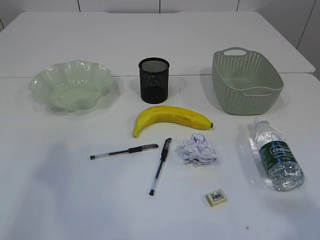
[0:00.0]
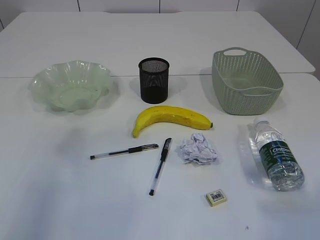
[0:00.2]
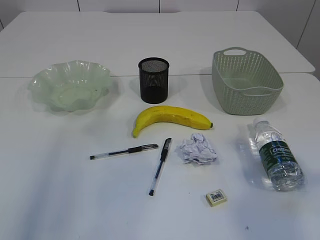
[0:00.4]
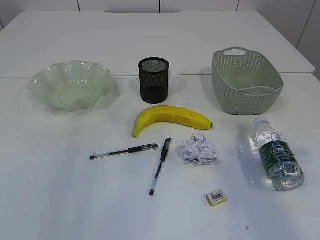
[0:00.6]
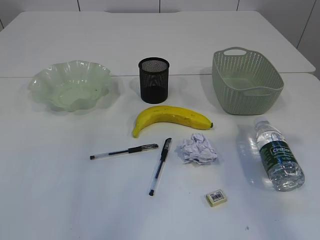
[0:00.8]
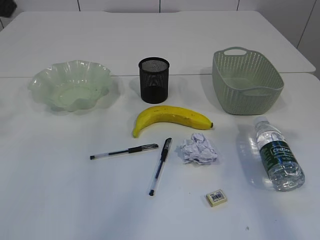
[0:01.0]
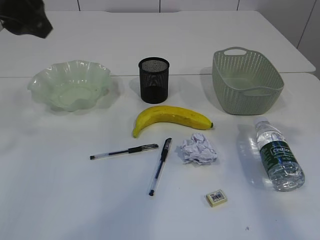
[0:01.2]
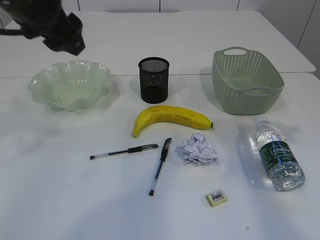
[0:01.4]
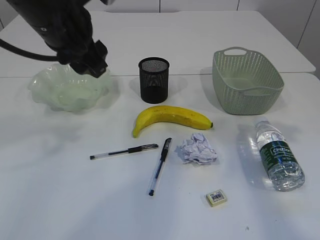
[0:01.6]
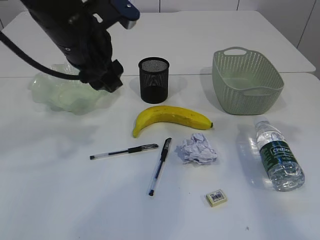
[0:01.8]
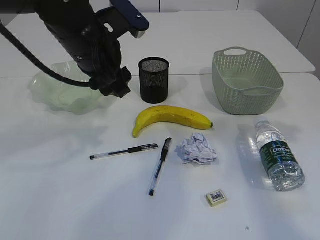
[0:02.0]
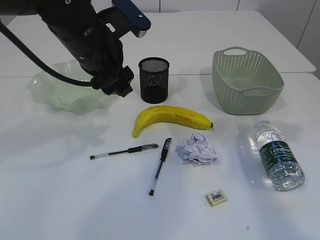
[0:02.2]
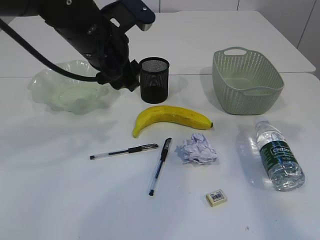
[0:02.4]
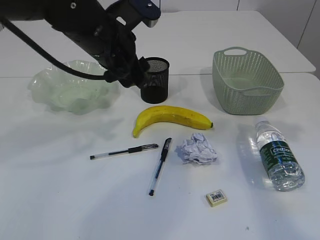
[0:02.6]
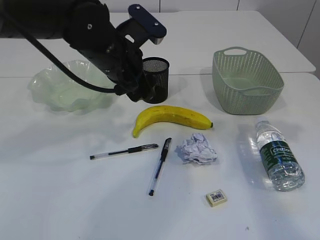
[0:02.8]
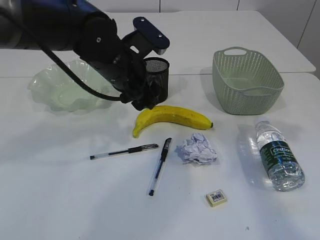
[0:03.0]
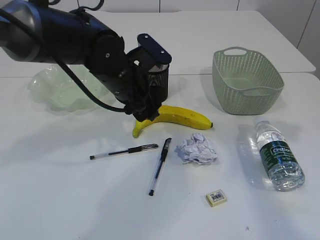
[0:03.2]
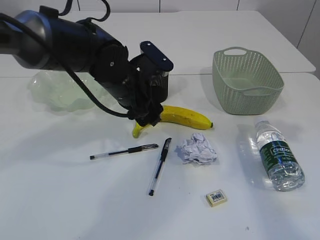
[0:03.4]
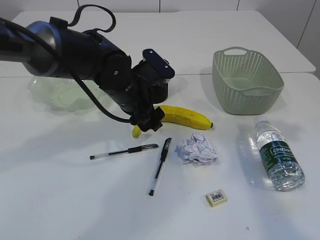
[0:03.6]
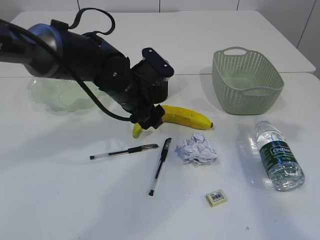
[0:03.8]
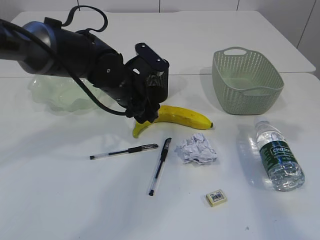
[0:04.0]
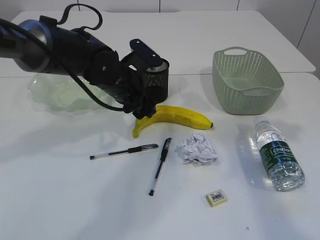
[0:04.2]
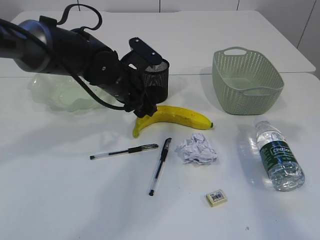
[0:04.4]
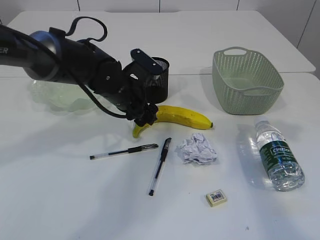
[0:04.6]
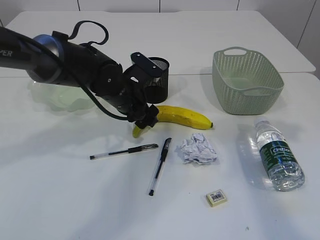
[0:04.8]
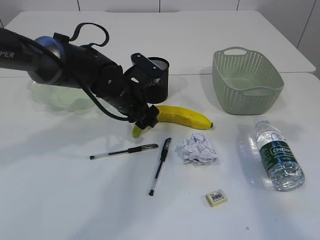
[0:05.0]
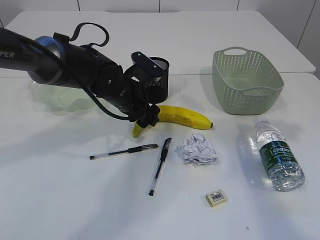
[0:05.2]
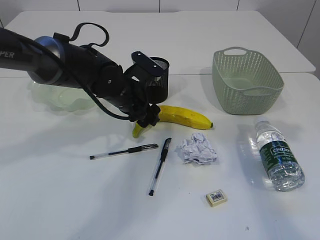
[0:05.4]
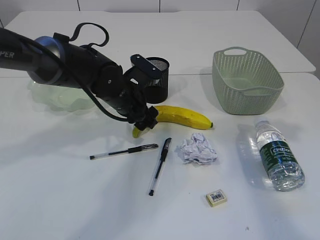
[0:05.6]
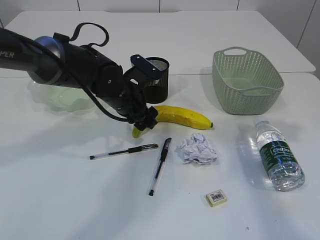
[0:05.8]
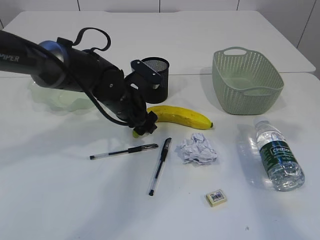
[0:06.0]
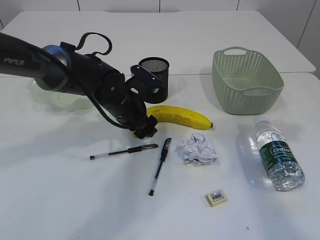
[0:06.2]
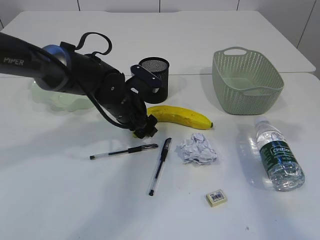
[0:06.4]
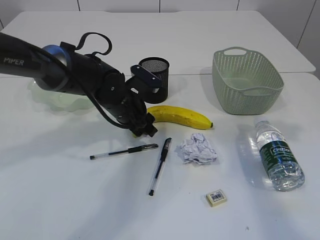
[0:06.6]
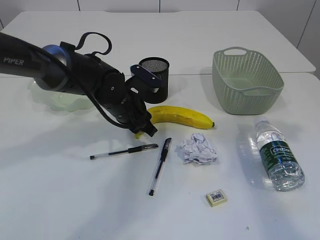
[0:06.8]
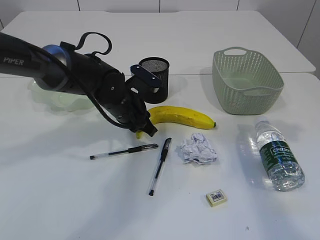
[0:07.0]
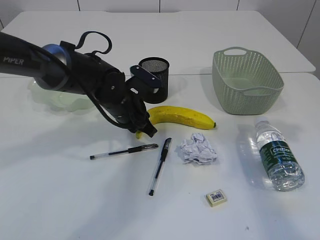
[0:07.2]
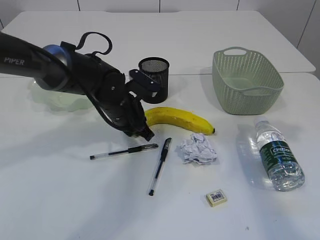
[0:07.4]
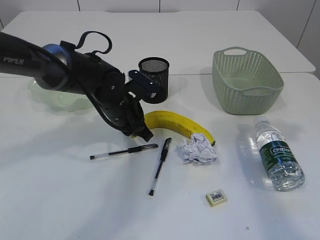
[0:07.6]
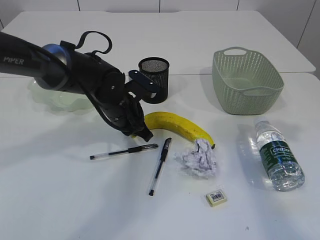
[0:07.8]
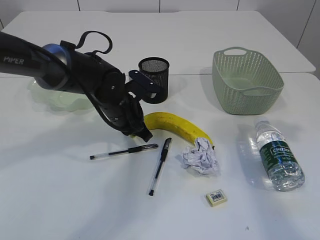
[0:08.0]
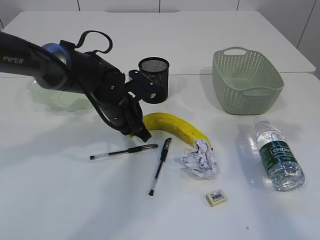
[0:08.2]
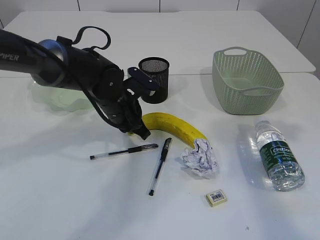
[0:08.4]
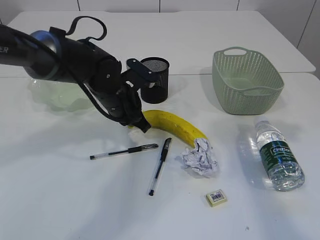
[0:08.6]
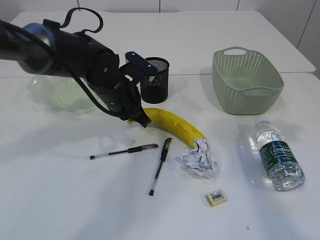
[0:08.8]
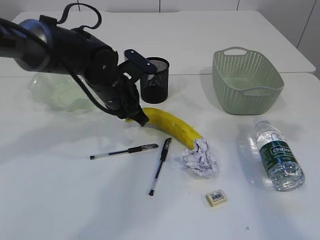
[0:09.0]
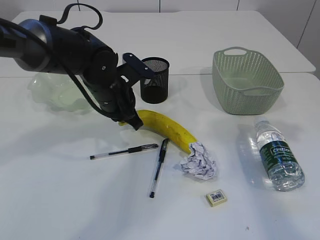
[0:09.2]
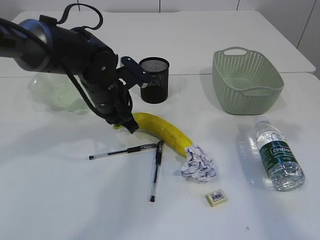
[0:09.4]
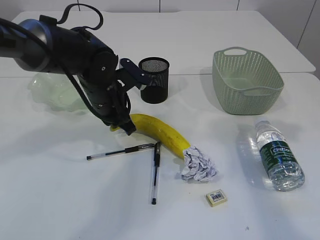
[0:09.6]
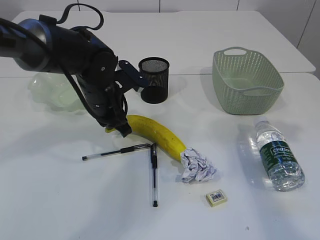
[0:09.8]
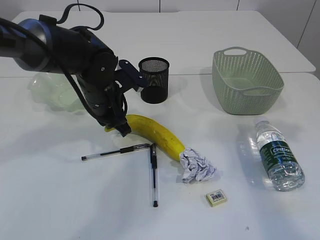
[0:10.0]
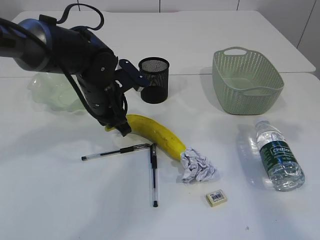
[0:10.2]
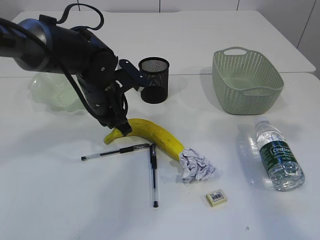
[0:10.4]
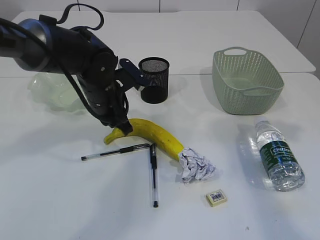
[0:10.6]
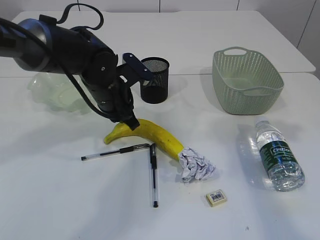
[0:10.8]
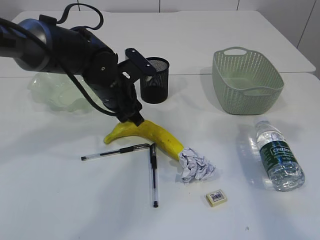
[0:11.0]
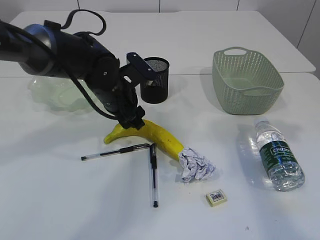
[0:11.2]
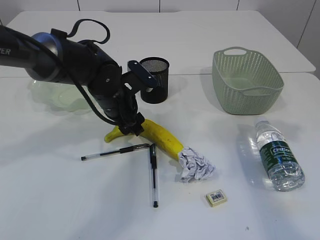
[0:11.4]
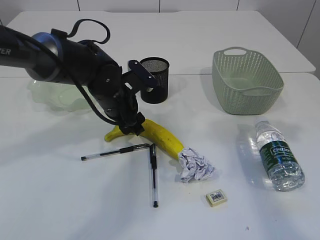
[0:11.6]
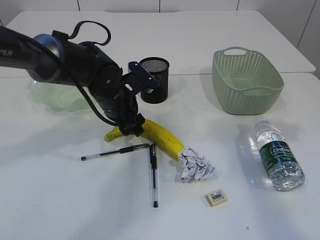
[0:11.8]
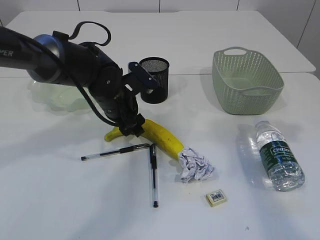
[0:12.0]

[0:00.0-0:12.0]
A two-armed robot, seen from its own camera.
0:00.0 to 0:01.6: The right gripper shifts some 25 cm forward. Meanwhile the left gripper shifts approximately 30 cm to the right and forward.
0:01.6 to 0:03.0: The left gripper moves downward and to the right, about 10 cm.
0:03.0 to 0:04.4: The left gripper travels downward by approximately 5 cm.
0:04.4 to 0:06.0: The grippers make only small movements.
0:06.0 to 0:07.6: The left gripper closes its fingers.
0:07.6 to 0:10.4: The grippers make only small movements.
0:10.4 to 0:12.0: The left gripper opens its fingers.

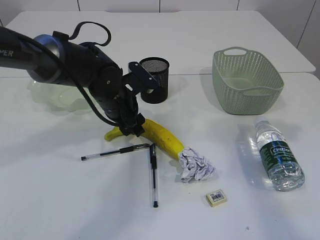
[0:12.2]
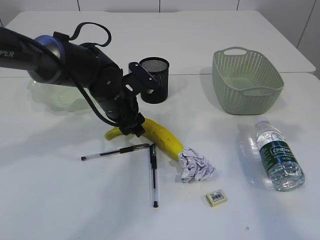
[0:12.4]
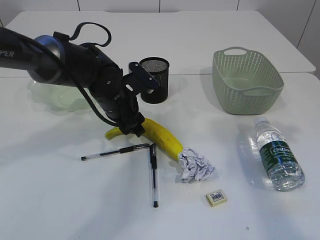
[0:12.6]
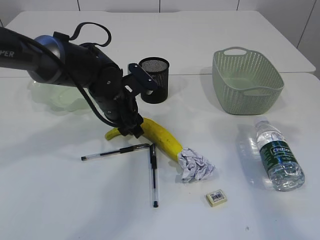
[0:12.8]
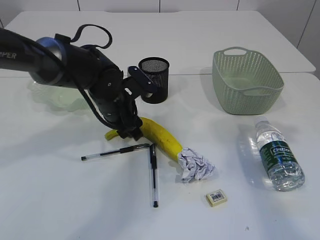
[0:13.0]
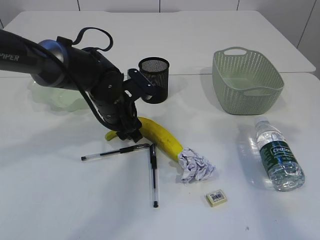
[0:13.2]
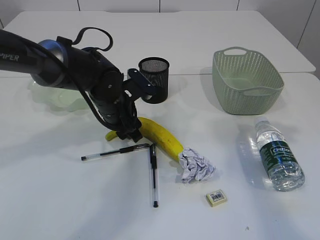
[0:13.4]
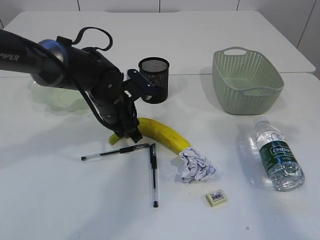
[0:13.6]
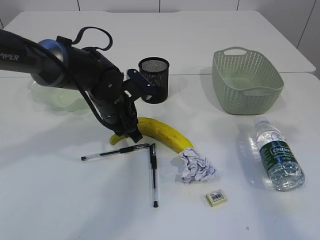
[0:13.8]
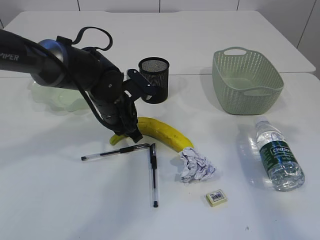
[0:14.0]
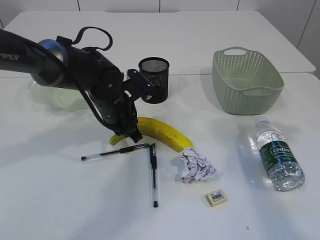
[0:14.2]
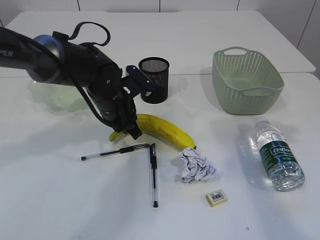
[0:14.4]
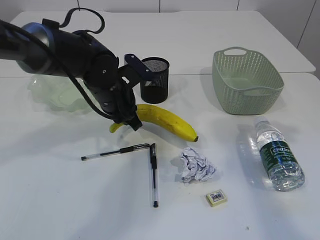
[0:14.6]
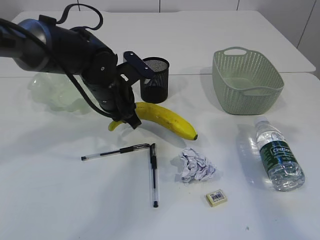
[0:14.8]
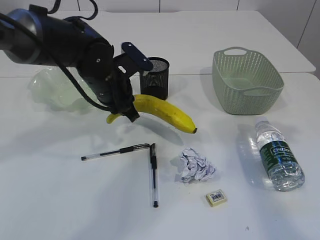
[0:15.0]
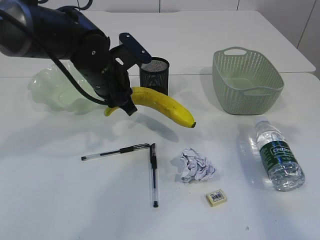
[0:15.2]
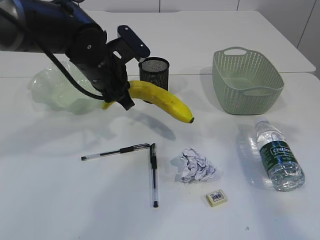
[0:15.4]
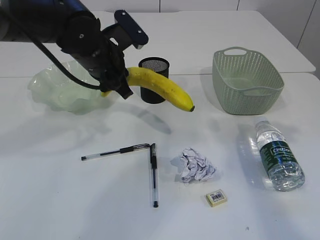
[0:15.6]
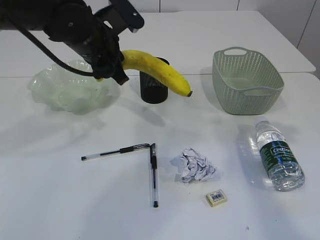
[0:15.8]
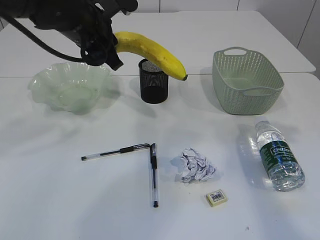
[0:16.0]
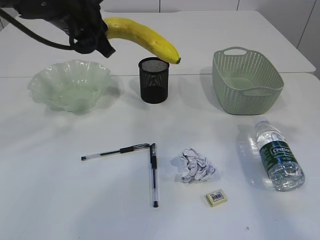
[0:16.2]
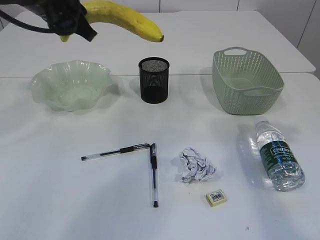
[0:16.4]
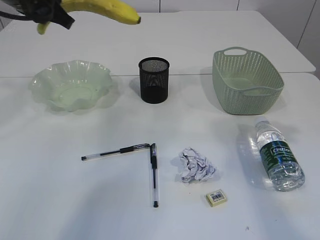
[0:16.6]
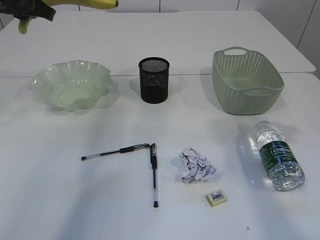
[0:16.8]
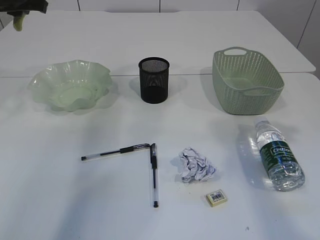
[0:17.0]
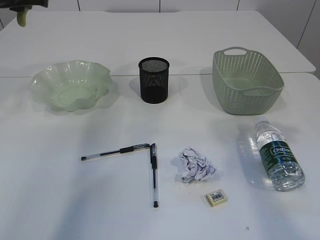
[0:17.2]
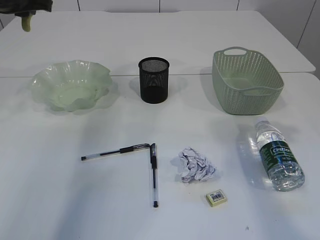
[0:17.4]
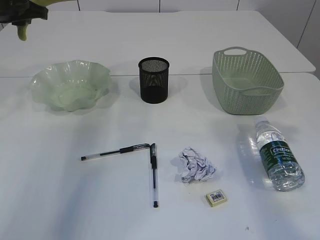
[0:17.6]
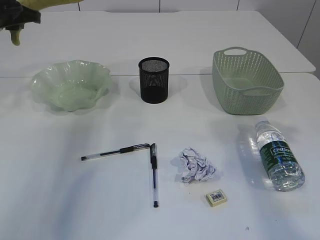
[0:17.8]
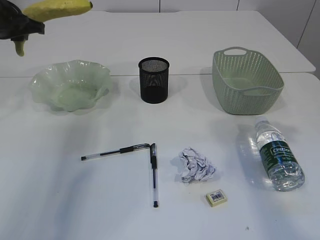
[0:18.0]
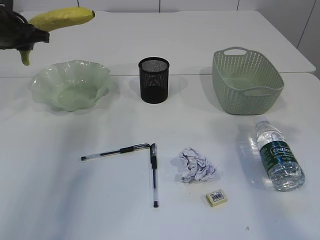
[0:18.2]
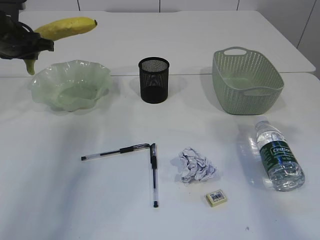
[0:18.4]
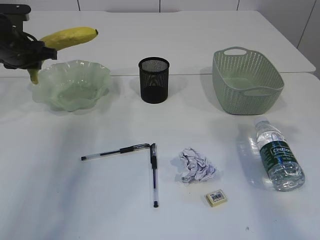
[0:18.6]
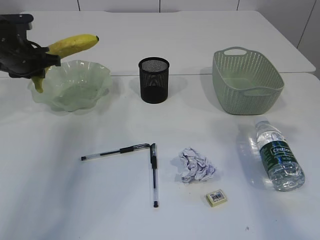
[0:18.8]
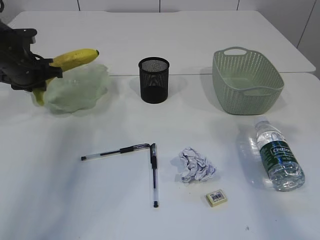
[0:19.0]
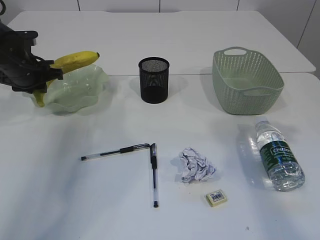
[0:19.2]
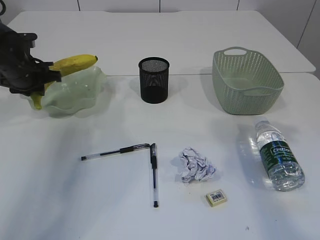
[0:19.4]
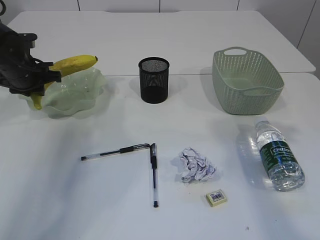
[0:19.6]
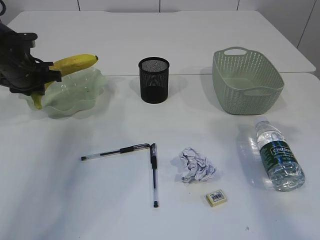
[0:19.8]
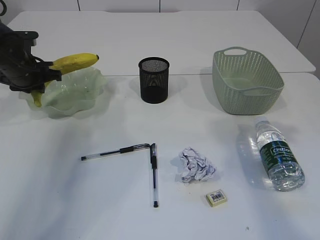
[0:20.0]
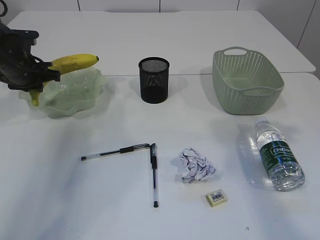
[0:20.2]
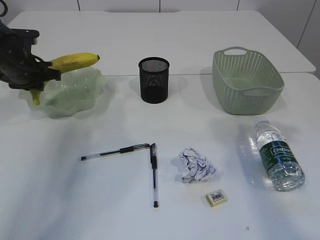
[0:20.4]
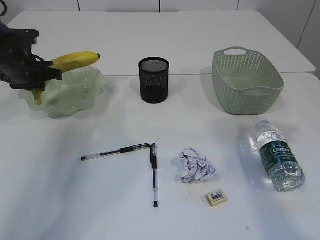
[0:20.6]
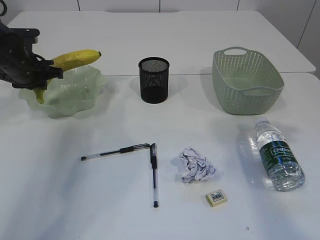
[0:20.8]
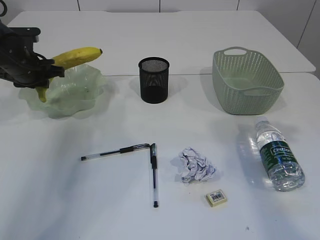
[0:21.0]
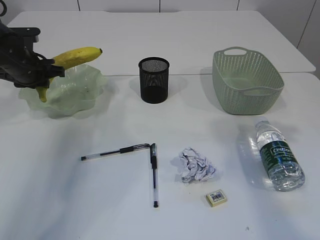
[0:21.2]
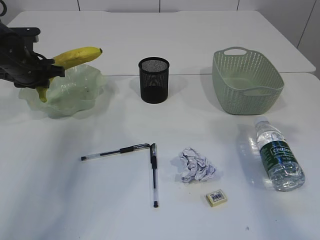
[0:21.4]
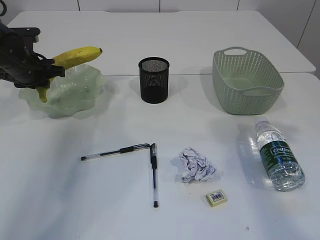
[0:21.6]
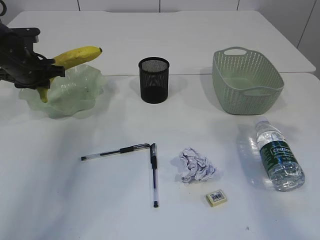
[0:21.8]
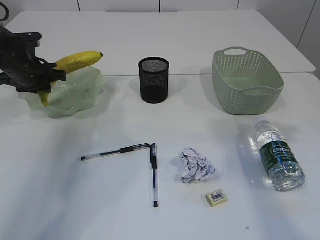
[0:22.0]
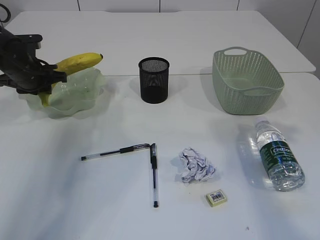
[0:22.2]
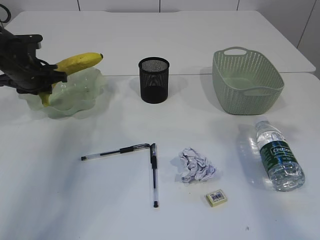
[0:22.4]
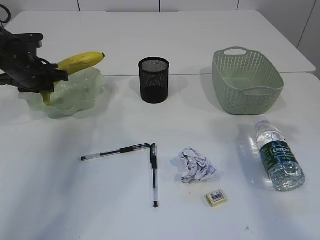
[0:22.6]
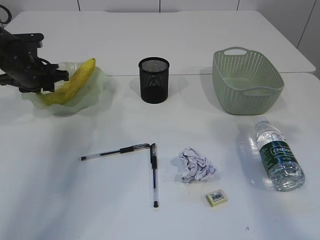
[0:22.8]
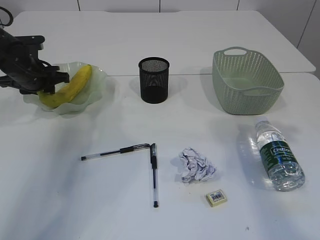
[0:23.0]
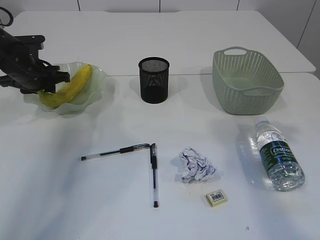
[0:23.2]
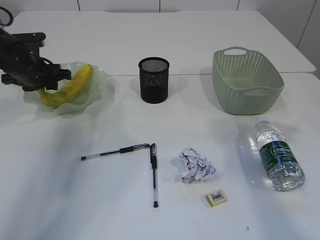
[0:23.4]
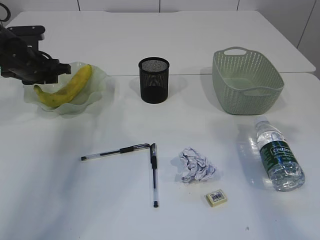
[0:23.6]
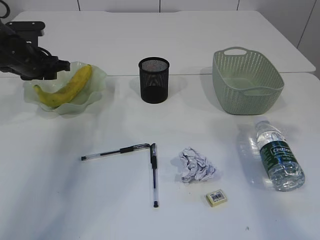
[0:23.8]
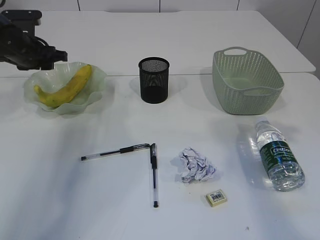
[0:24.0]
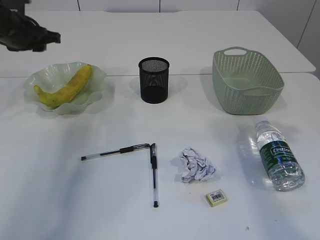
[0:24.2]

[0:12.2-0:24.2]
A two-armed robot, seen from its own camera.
Step, 0:15.0 to 0:23.6: Place the banana in the plate.
0:12.2 to 0:13.8: The left gripper closes up.
0:13.8 to 0:15.2: The left gripper shifts approximately 5 cm upward.
0:15.2 to 0:16.6: The left gripper travels upward and to the left by roughly 15 cm.
0:16.6 to 0:18.2: The left gripper moves to the left, downward and forward, about 15 cm.
0:18.2 to 0:19.8: The left gripper is displaced downward by some 10 cm.
0:19.8 to 0:21.2: The grippers make only small movements.
0:21.2 to 0:22.6: Both grippers stay about where they are.
0:22.6 to 0:24.2: The left gripper travels upward by approximately 10 cm.
